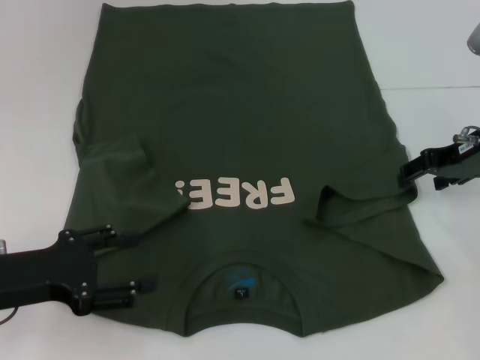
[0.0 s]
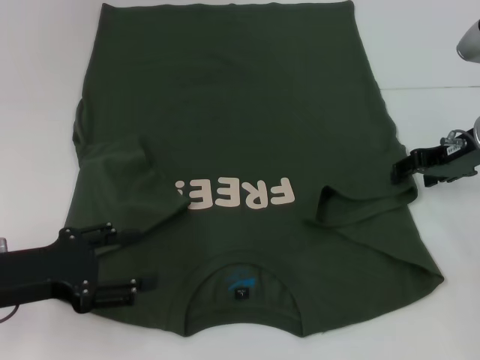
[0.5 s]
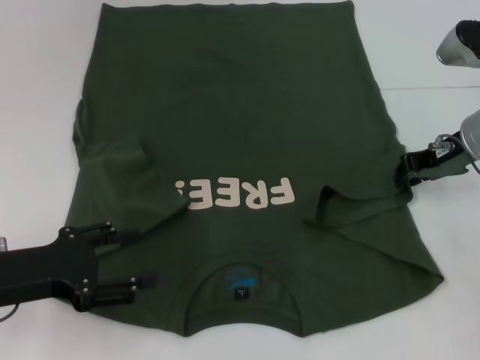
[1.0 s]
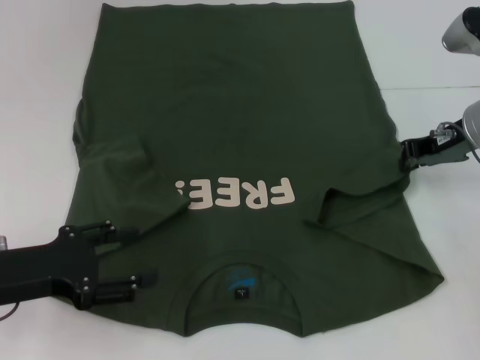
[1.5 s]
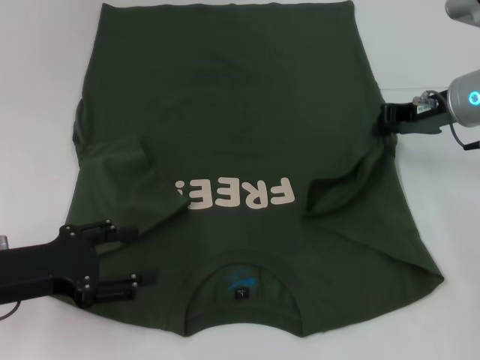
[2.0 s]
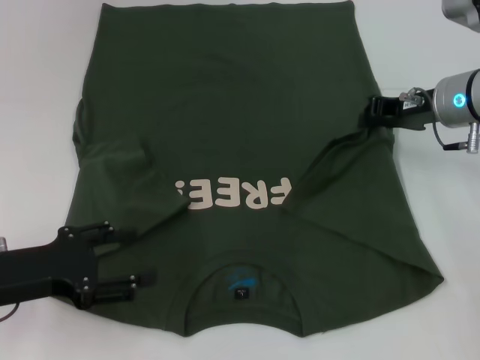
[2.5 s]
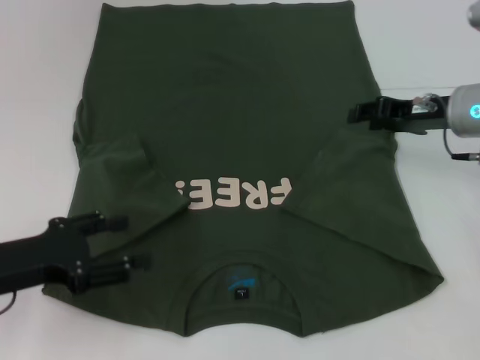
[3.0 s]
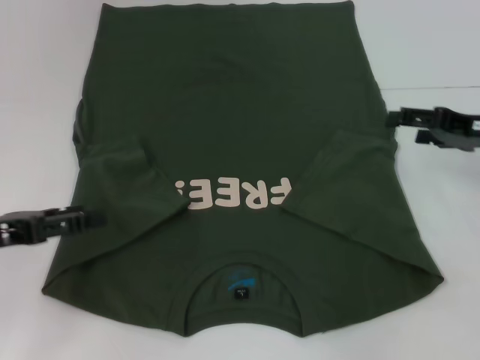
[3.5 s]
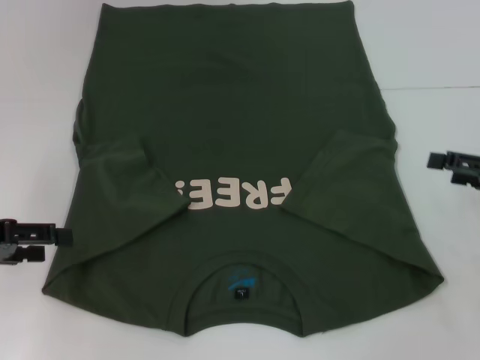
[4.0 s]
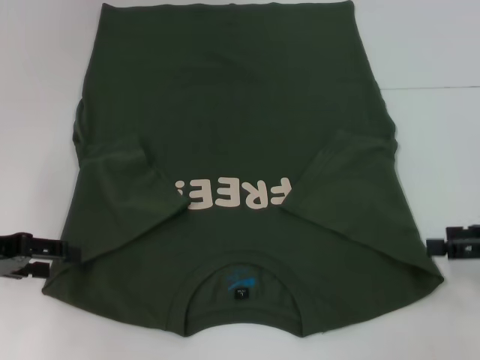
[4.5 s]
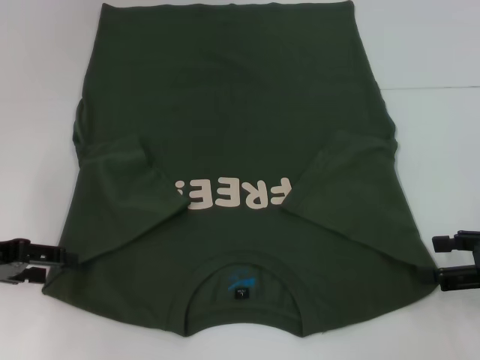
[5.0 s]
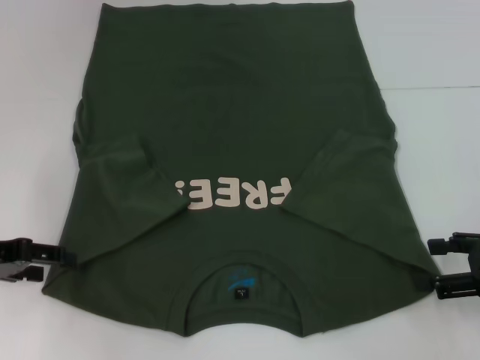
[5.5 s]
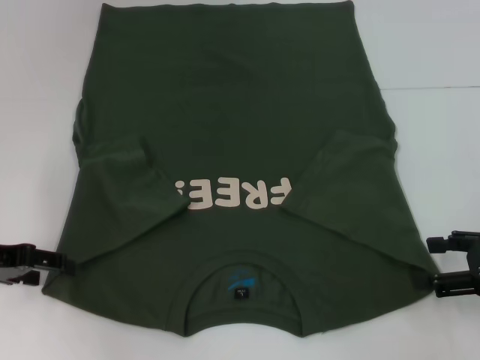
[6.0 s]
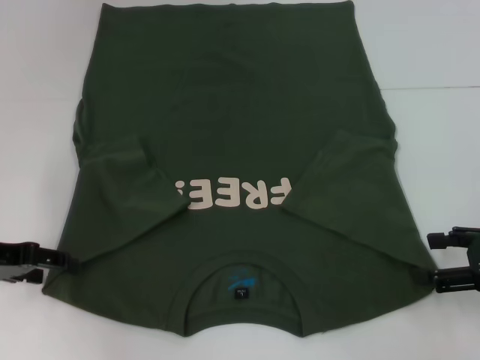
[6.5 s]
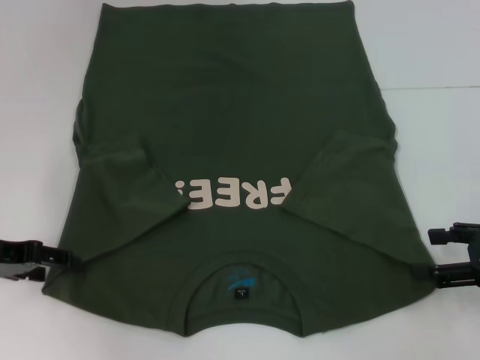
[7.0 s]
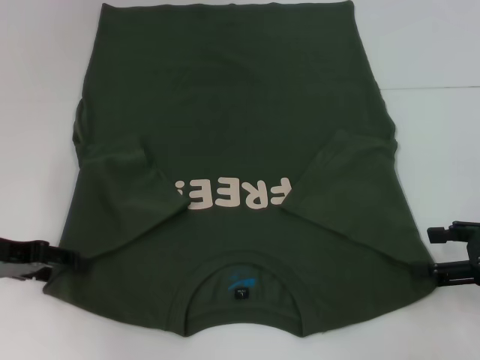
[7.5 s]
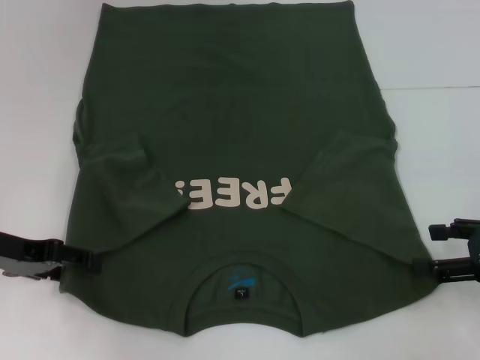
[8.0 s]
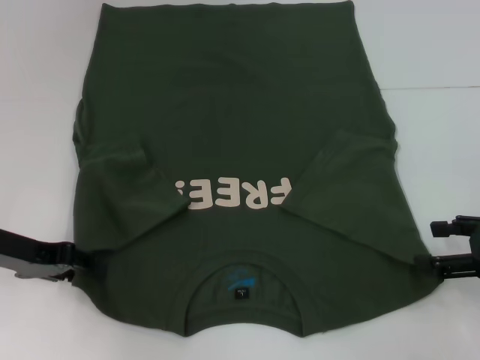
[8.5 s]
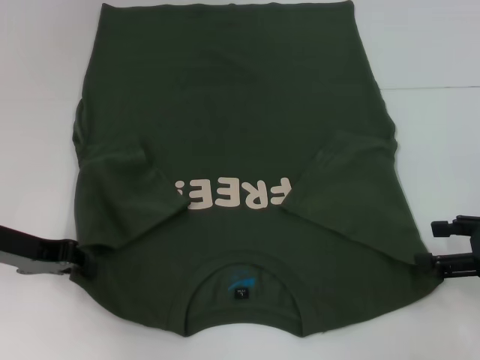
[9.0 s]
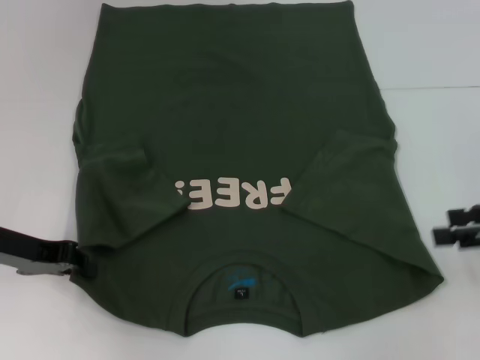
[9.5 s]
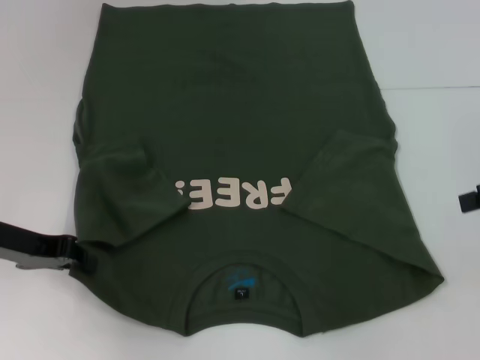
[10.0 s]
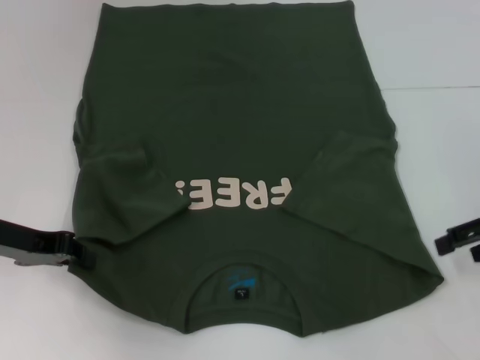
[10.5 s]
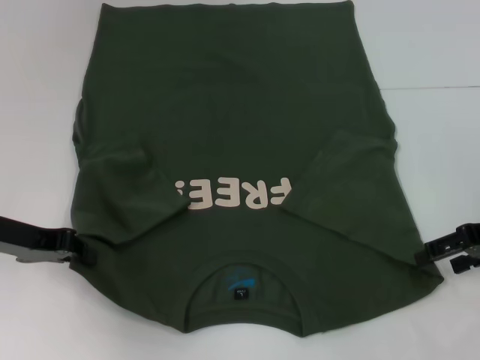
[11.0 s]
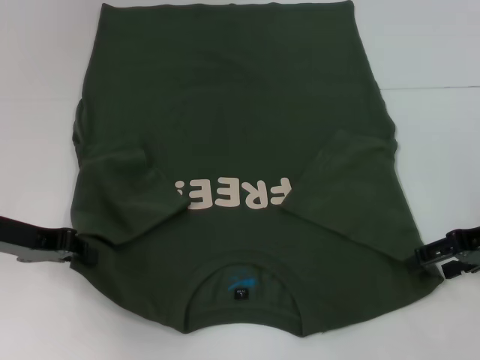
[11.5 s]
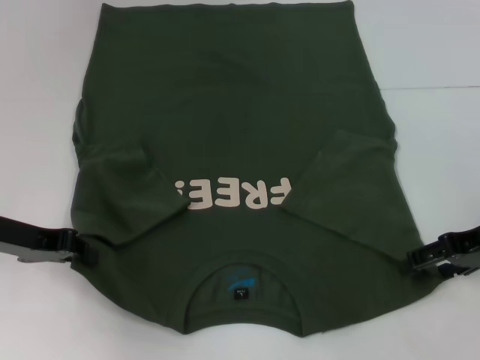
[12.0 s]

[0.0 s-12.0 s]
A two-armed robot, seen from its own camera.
Step, 0.0 to 2.5 s: Fold the bottom right sleeve with your right hand.
Step, 3.0 to 9.0 s: Grab the bottom left corner with your left hand.
0.0 to 2.0 s: The right gripper closes up.
2.0 to 4.0 s: The left gripper travels to the left by roughly 5 cm. Meanwhile the right gripper moves to the right and backward, about 15 cm, and opens.
4.0 to 6.0 s: The right gripper changes place by approximately 5 cm.
6.0 to 8.0 s: The grippers make only small movements.
8.0 to 10.0 s: The left gripper closes up; the right gripper goes roughly 10 cm upward.
10.0 to 12.0 s: The right gripper moves downward and to the left, some 10 cm.

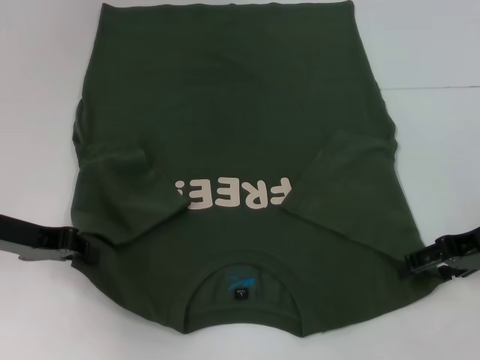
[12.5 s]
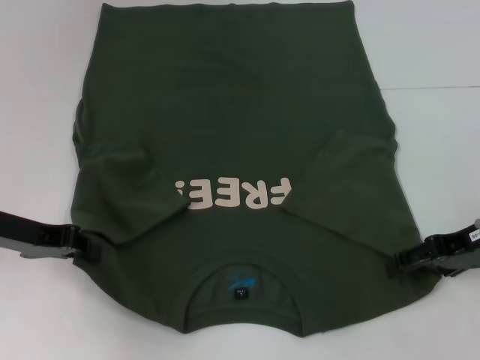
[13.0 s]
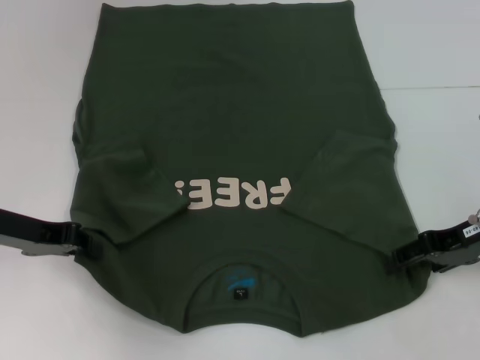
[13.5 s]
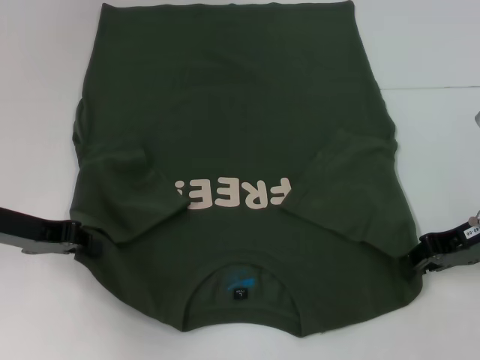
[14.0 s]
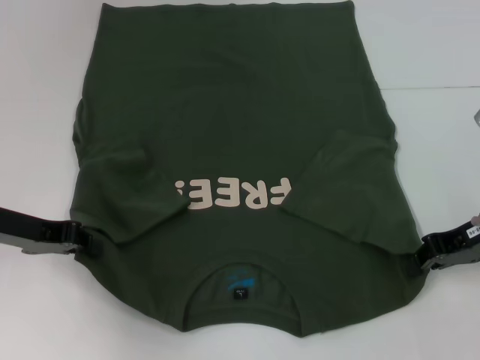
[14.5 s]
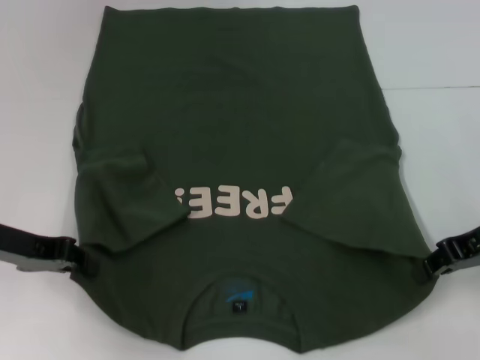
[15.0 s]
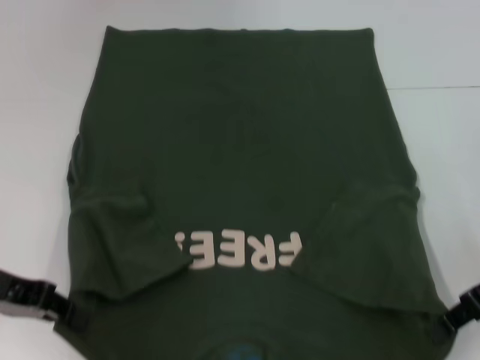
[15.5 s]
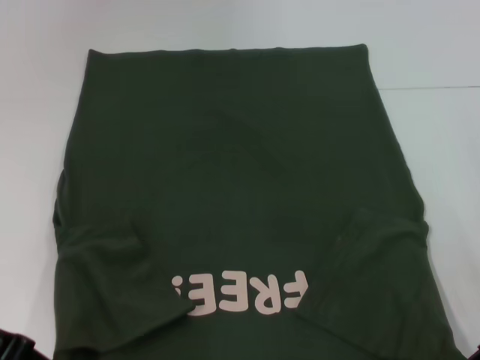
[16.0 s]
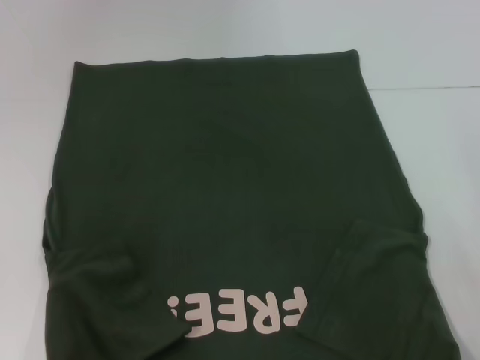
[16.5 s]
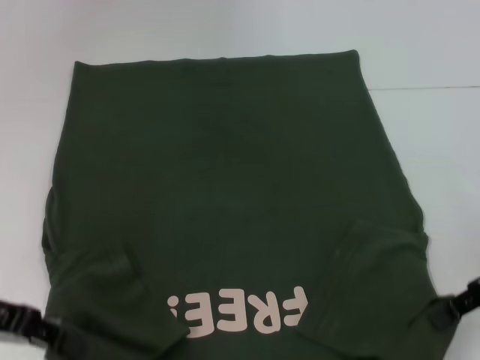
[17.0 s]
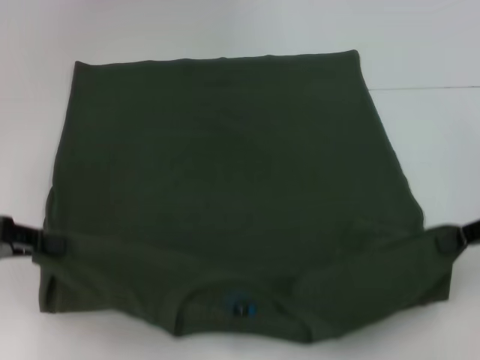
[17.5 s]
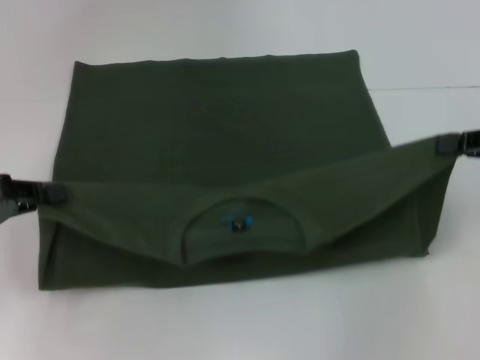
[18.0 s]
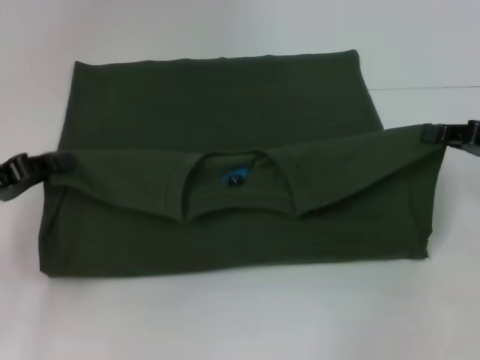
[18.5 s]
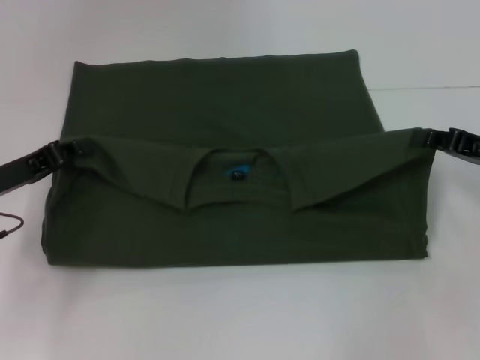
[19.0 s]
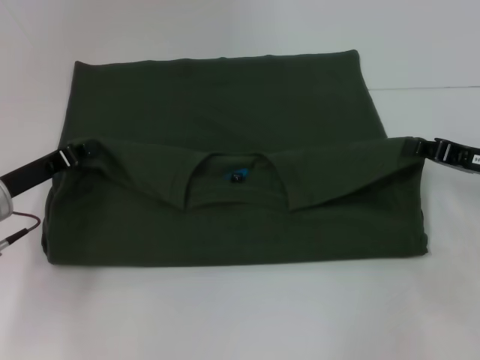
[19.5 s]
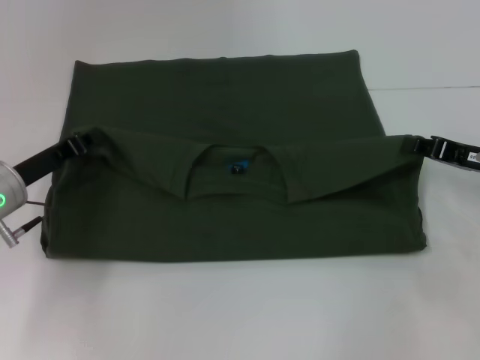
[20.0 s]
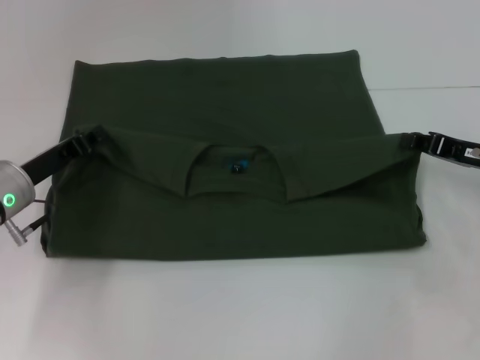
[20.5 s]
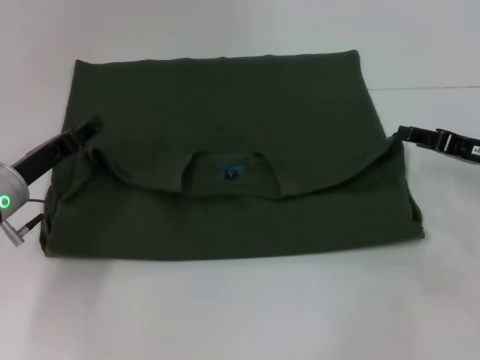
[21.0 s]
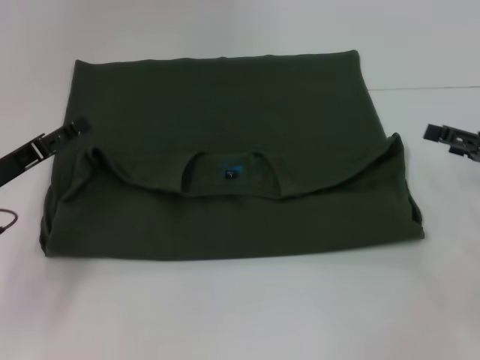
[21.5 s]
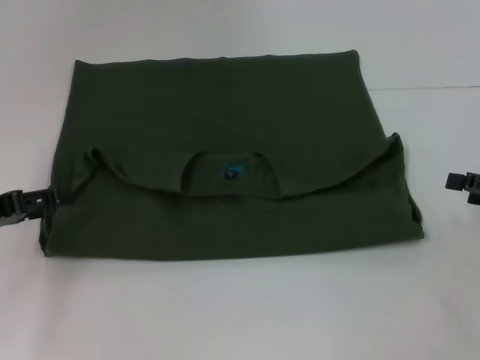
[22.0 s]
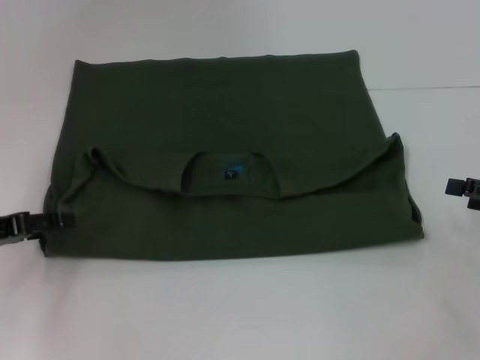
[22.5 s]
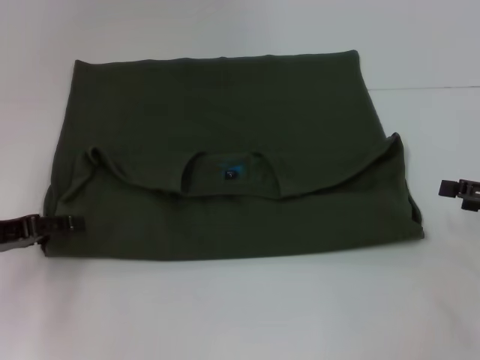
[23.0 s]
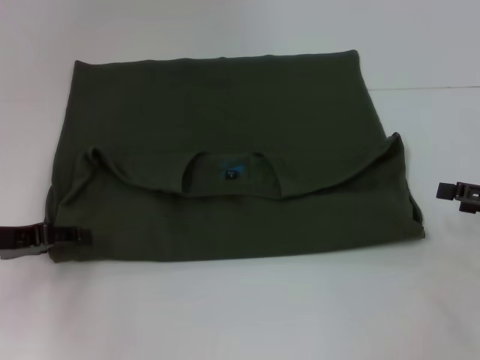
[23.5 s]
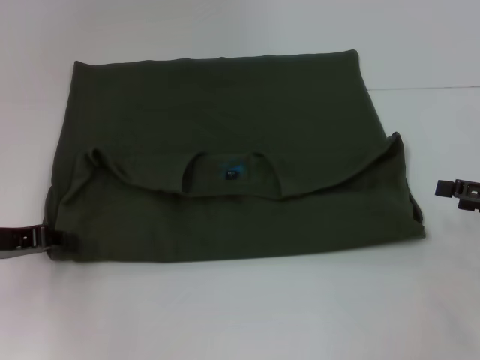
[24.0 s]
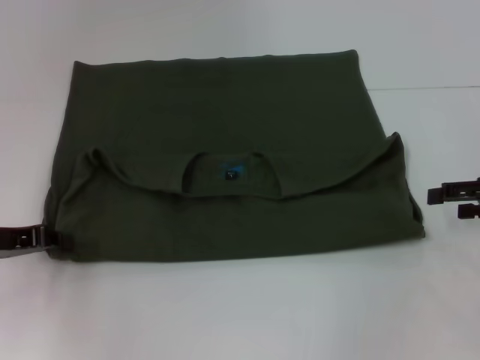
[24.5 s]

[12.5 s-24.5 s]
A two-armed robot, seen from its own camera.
Step, 14.5 to 20.5 s: Fold the clothes with your left hand.
Step, 14.5 to 20.5 s: Fold the clothes with your right hand.
12.5 to 14.5 s: The right gripper closes its fingers.
14.5 to 16.5 s: Both grippers move backward, some 5 cm.
16.5 to 18.5 s: The left gripper shifts by some 5 cm, while the right gripper is displaced to the right by some 5 cm.
18.5 to 20.5 s: The left gripper shifts some 10 cm to the right and forward. Meanwhile the right gripper ends up approximately 5 cm from where it was.
20.5 to 22.5 s: The left gripper shifts some 10 cm to the left, and opens its fingers. The right gripper heads to the right and backward, covering roughly 10 cm, and opens up.
22.5 to 24.5 s: The left gripper closes up, while the right gripper changes place by some 5 cm.

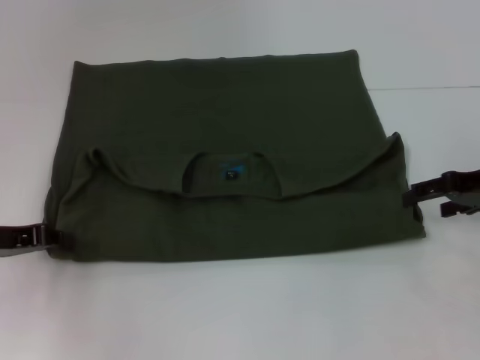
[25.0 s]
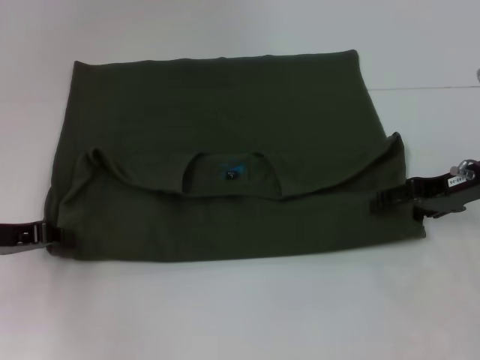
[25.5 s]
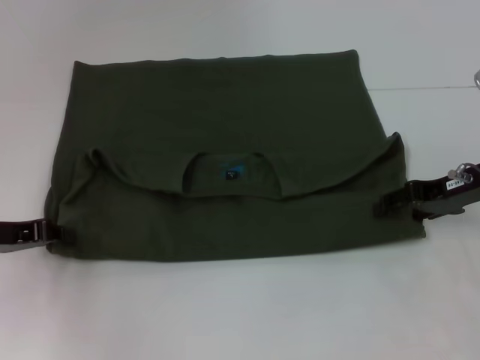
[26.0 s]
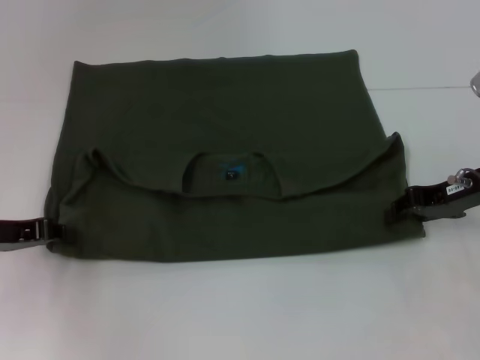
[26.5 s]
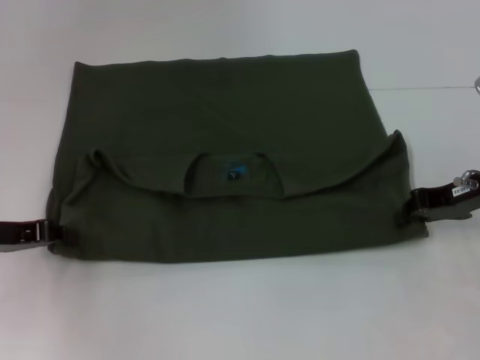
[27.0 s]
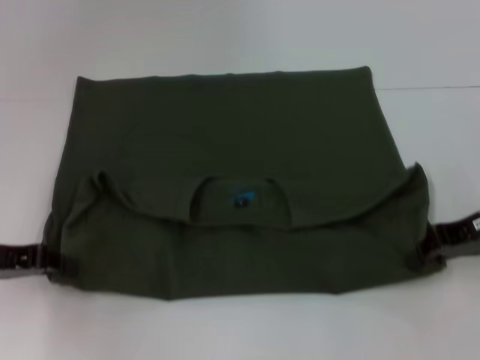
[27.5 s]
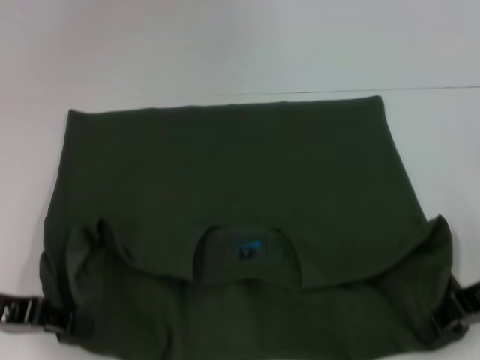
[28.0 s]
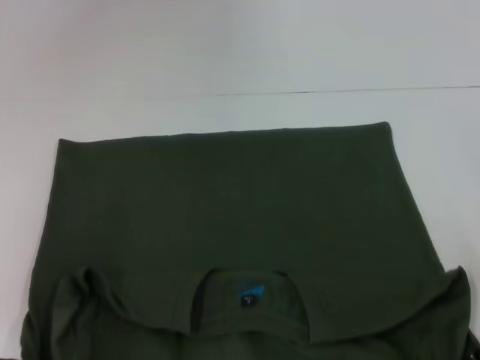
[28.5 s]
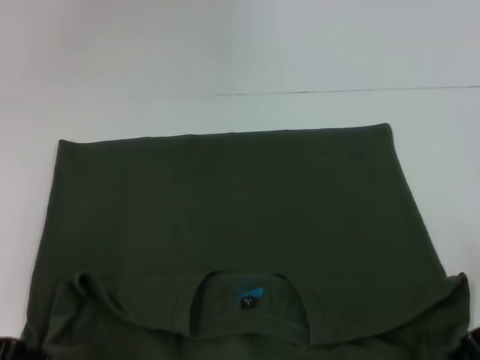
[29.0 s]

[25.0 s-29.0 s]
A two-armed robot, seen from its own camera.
Step, 25.0 to 28.5 s: Pull the clothes with your left hand.
Step, 25.0 to 28.5 s: Pull the clothes with your right hand.
25.0 to 27.0 s: The right gripper closes its fingers.
27.0 to 29.0 s: The two grippers go some 10 cm backward.
